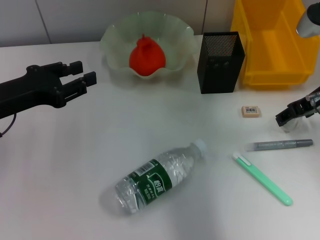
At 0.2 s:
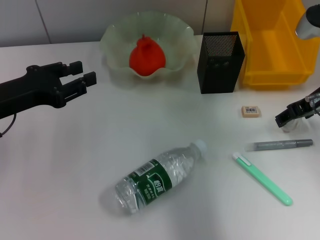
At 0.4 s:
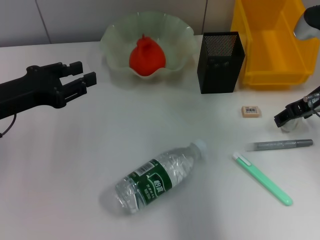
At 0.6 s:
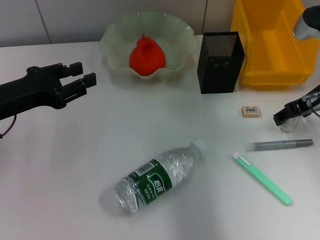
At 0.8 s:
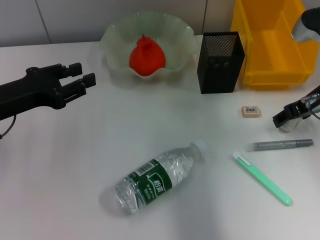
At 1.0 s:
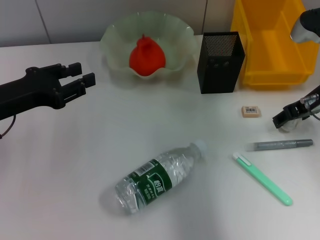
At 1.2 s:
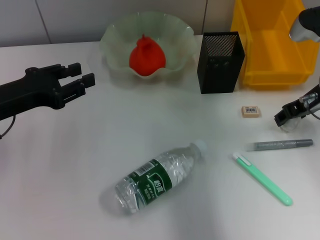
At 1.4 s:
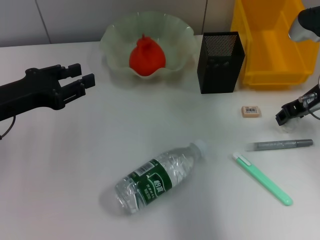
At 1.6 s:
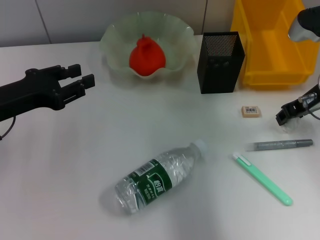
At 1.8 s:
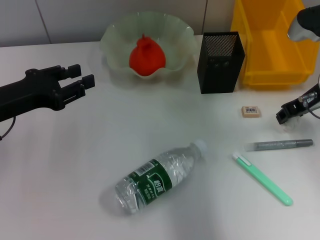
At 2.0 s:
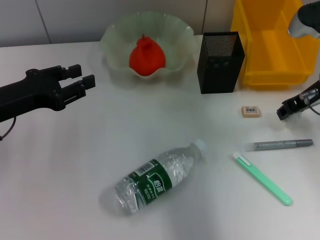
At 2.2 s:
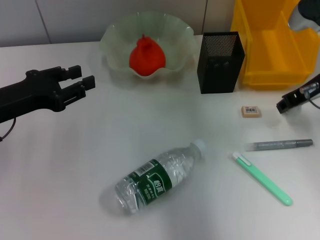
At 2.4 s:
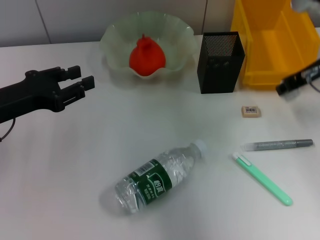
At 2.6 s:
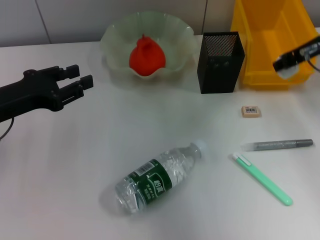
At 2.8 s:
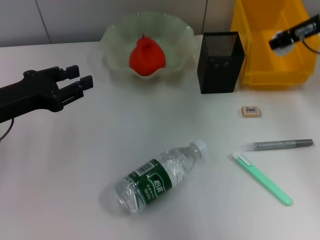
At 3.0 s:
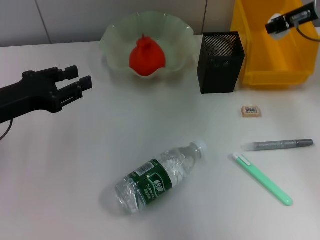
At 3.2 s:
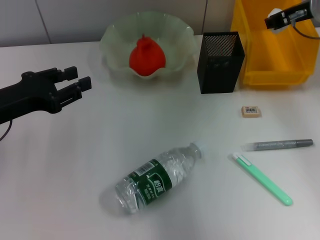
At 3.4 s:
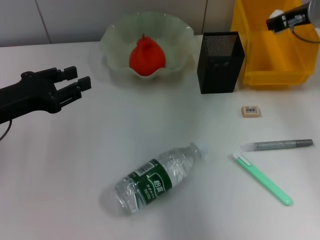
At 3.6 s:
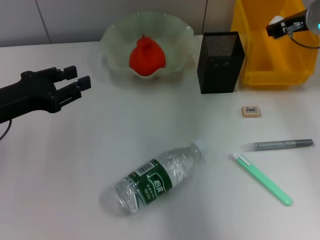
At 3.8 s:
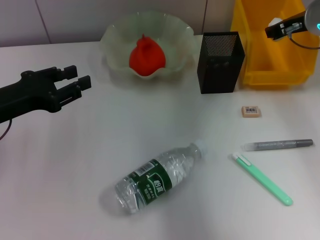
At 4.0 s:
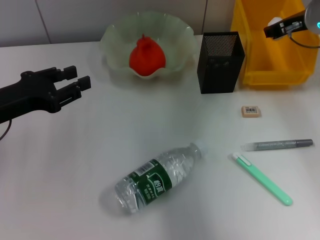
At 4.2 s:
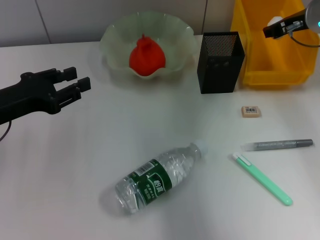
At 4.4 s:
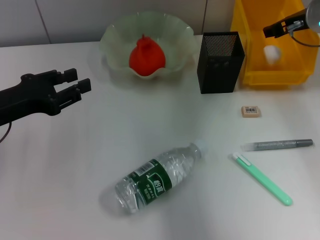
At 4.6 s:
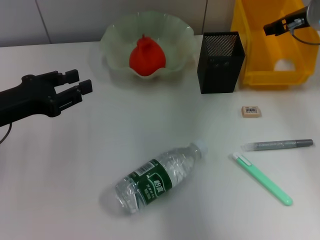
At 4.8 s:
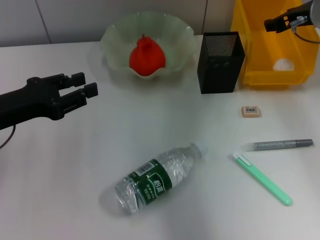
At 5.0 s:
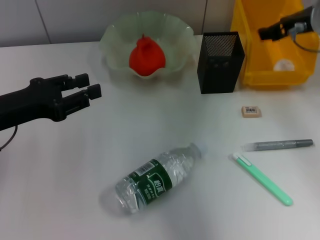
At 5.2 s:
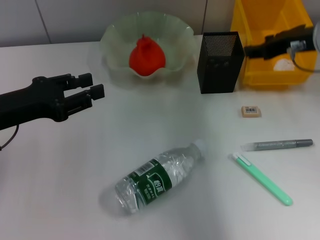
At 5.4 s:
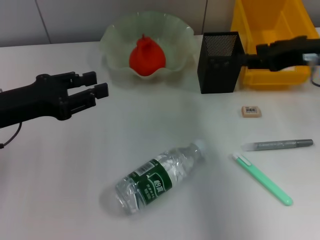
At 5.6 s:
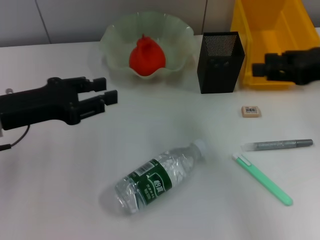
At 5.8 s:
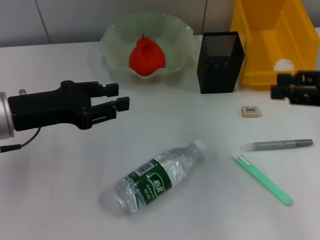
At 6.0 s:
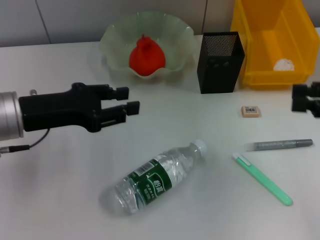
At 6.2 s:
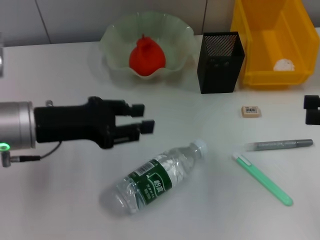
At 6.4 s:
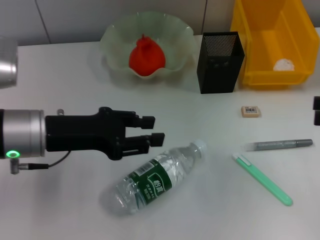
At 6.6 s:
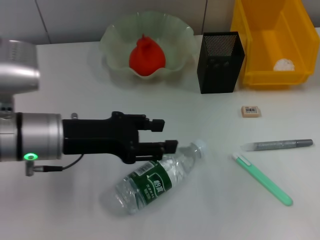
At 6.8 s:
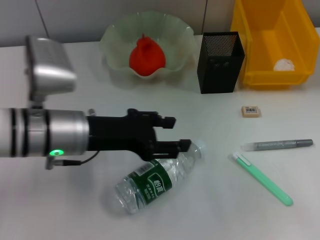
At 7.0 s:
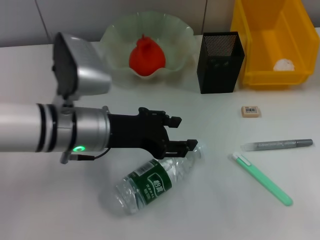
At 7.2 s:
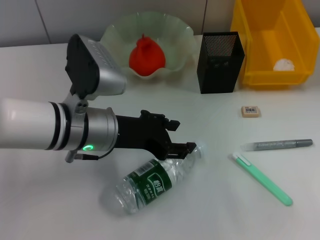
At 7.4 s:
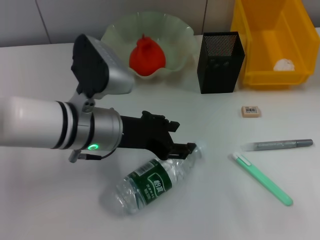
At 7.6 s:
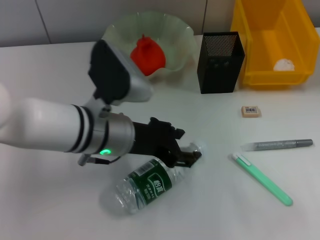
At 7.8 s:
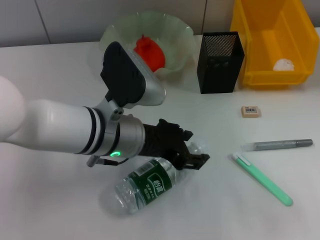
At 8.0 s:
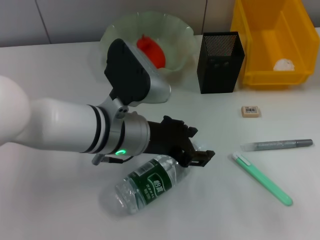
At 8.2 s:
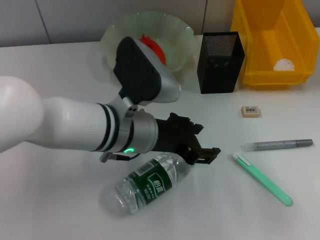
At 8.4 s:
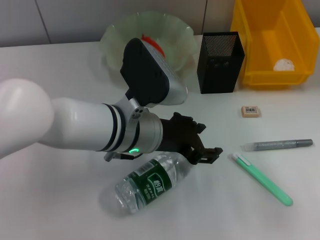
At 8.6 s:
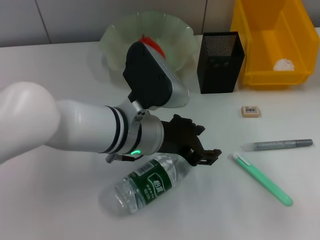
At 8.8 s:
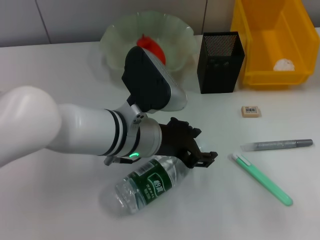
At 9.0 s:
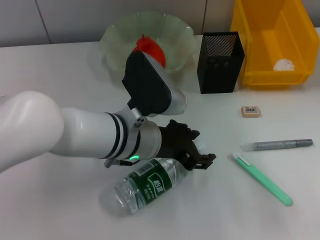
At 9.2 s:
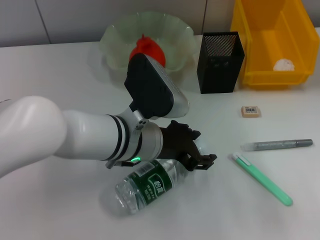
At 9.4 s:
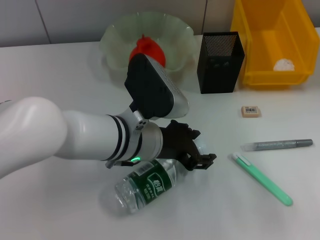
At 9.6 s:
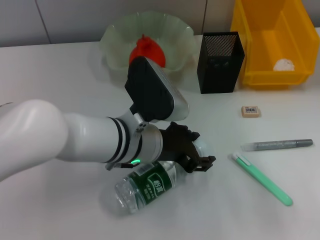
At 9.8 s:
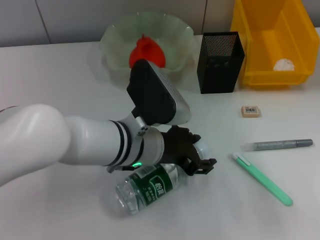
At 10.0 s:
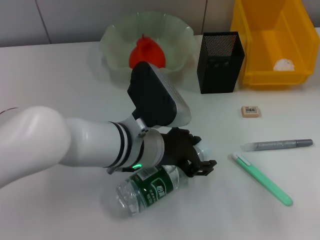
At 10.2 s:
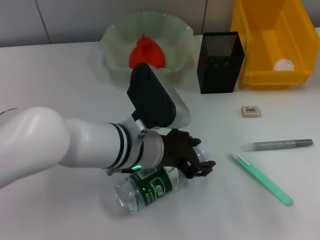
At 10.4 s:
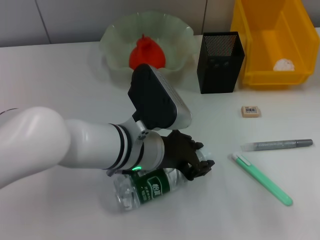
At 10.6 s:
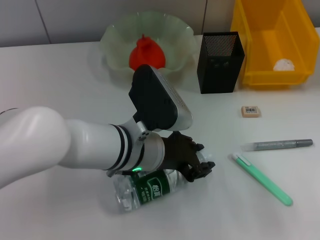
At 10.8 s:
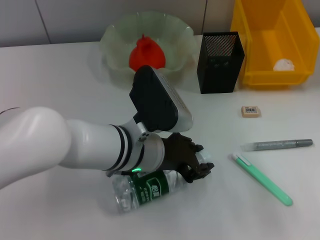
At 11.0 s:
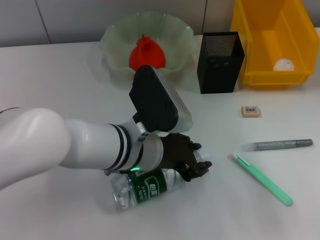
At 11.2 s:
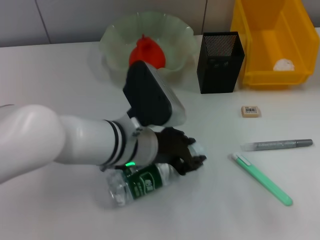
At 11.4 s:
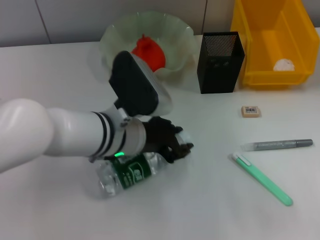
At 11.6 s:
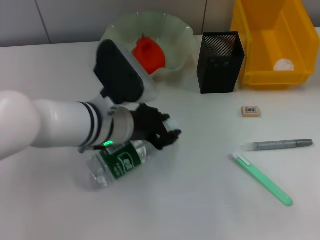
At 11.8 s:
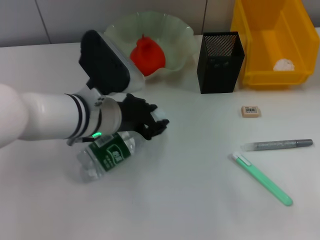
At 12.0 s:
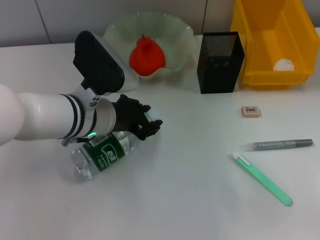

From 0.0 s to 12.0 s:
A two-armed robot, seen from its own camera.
Step, from 1.8 s to 5.2 s: Place the paper ball into the trash can with the right hand.
Step, from 5.4 s to 11.4 s: Grab the water bottle with the left hand.
From 0.0 s to 1.6 s: The right gripper closes up.
From 1.6 s to 3.0 s: The right gripper shifts roughly 10 cm upward.
From 3.0 s to 4.4 s: The right gripper shifts by approximately 5 cm.
From 4.4 s to 6.0 s: The right gripper is displaced backward and to the right by some 20 cm. Meanwhile the left gripper moves to the right, roughly 5 cm.
From 6.0 s to 7.6 s: The left gripper shifts about 15 cm to the right; the right gripper travels backward and to the right by about 10 cm.
From 7.6 s to 9.0 s: The grippers stay close to where they were, moving slightly.
From 9.0 s to 10.4 s: Both grippers stay about where they are.
From 10.4 s to 12.0 s: The left gripper heads to the left, covering approximately 5 cm.

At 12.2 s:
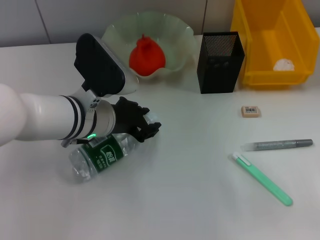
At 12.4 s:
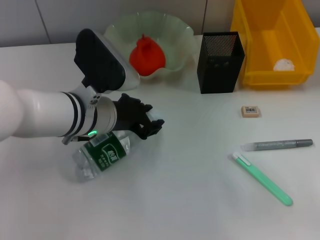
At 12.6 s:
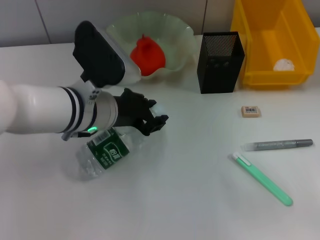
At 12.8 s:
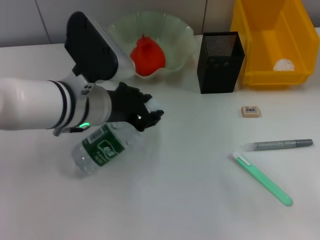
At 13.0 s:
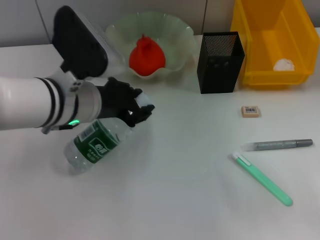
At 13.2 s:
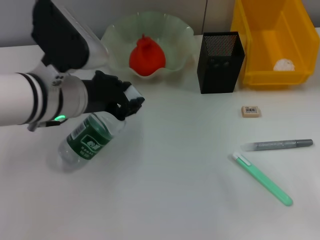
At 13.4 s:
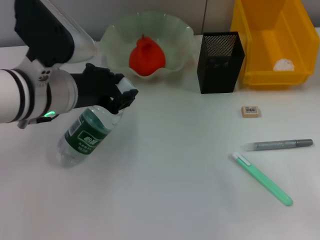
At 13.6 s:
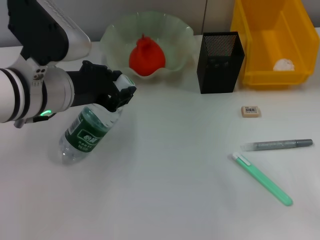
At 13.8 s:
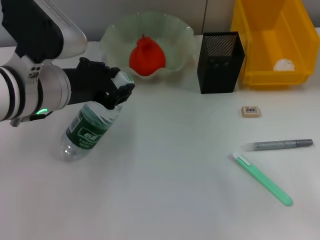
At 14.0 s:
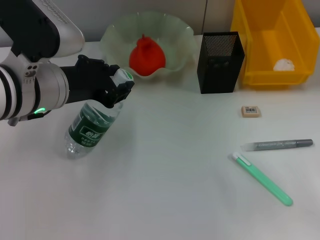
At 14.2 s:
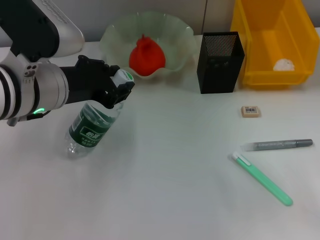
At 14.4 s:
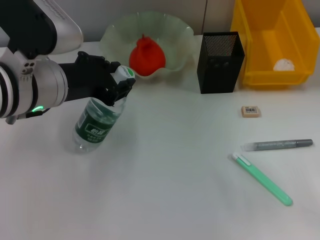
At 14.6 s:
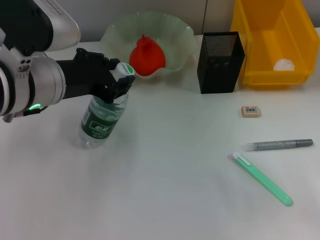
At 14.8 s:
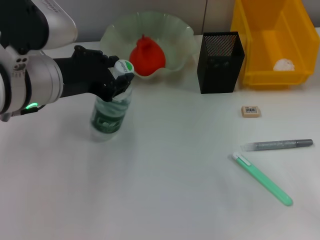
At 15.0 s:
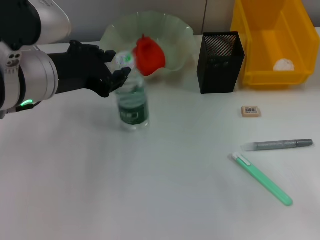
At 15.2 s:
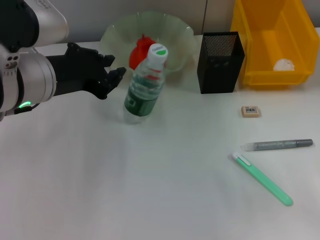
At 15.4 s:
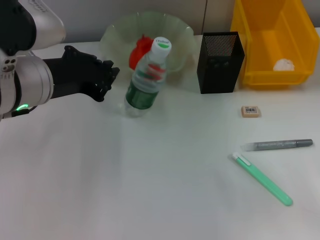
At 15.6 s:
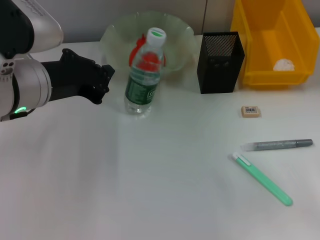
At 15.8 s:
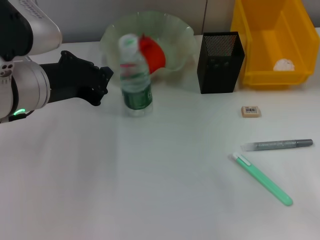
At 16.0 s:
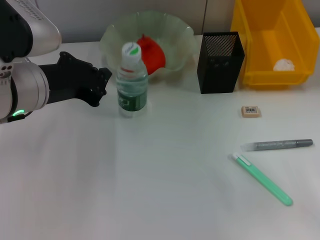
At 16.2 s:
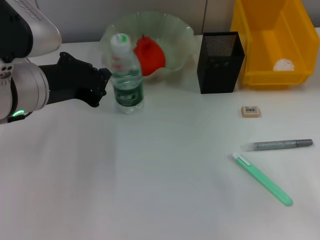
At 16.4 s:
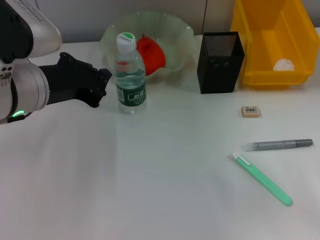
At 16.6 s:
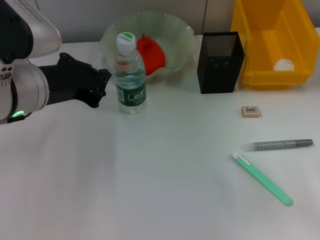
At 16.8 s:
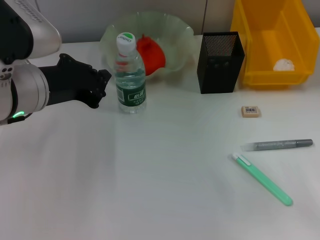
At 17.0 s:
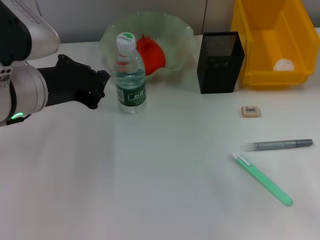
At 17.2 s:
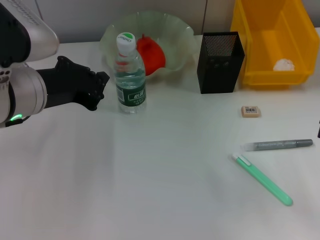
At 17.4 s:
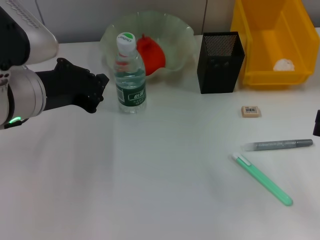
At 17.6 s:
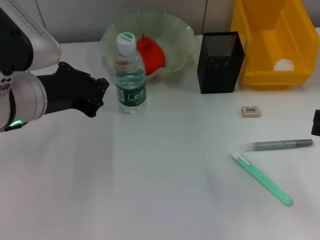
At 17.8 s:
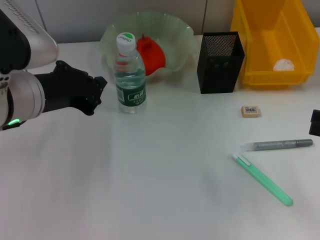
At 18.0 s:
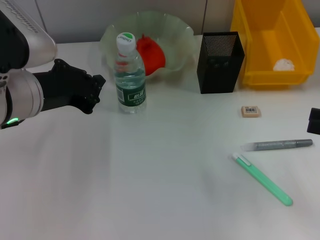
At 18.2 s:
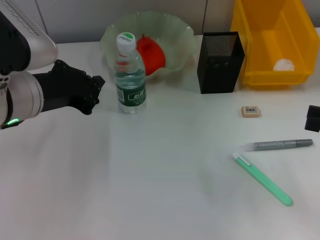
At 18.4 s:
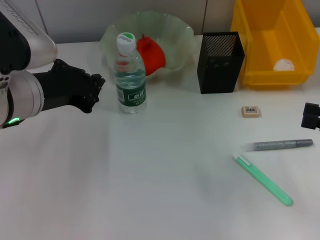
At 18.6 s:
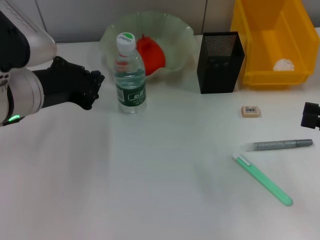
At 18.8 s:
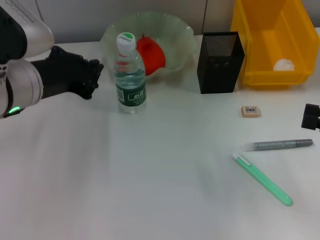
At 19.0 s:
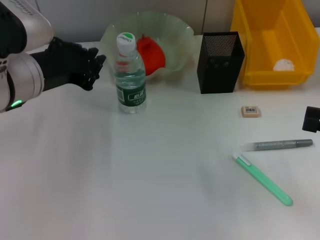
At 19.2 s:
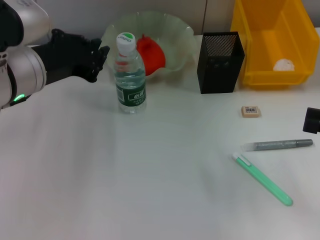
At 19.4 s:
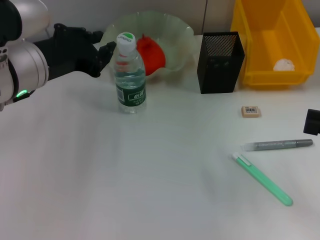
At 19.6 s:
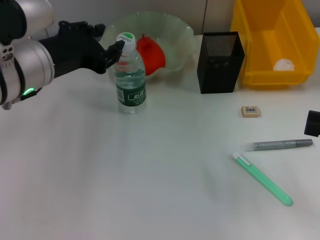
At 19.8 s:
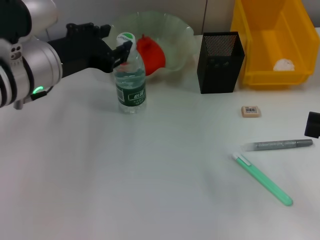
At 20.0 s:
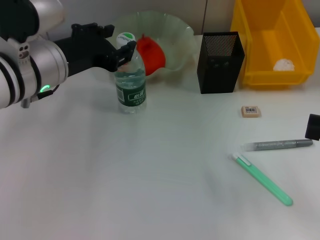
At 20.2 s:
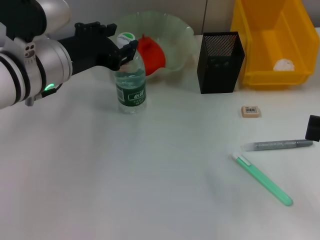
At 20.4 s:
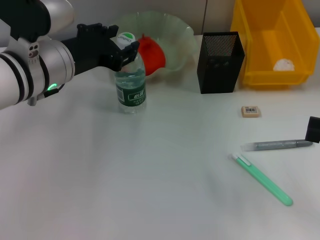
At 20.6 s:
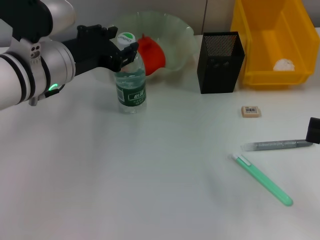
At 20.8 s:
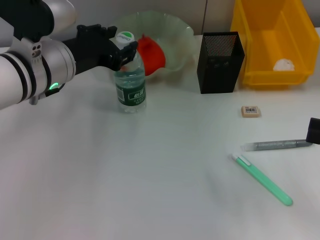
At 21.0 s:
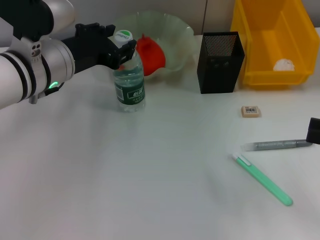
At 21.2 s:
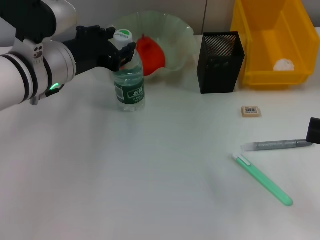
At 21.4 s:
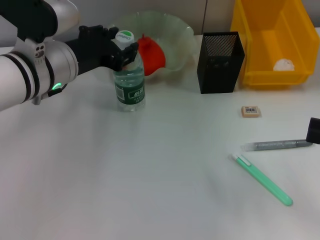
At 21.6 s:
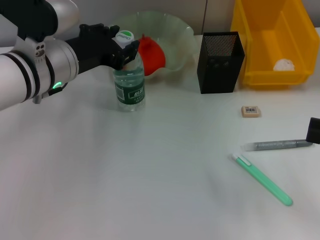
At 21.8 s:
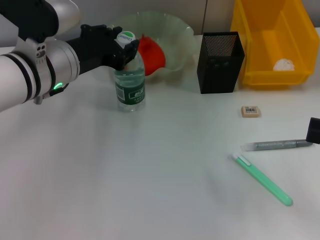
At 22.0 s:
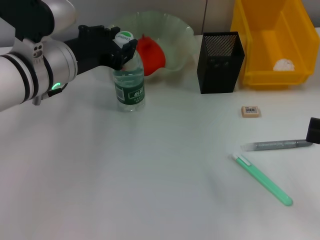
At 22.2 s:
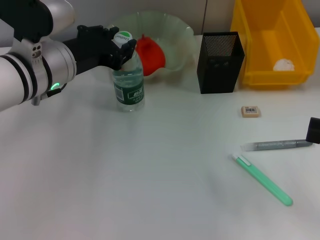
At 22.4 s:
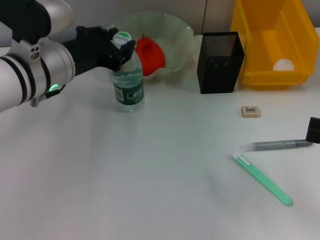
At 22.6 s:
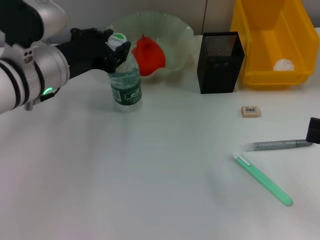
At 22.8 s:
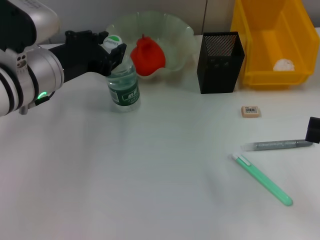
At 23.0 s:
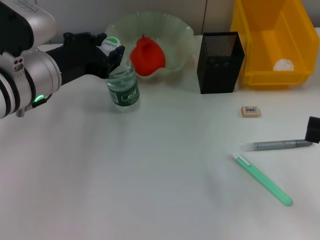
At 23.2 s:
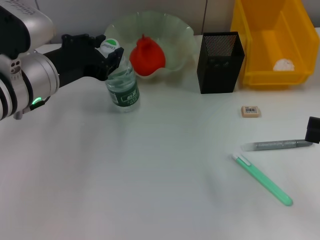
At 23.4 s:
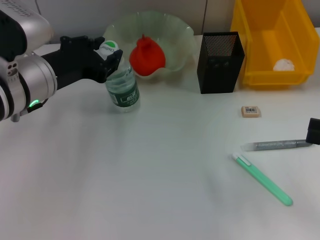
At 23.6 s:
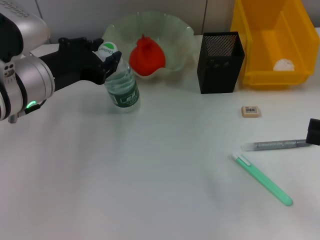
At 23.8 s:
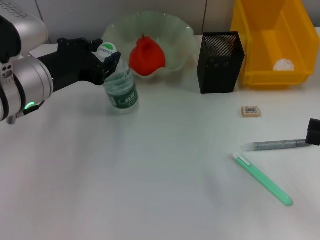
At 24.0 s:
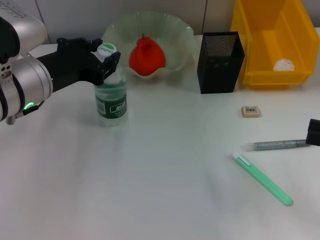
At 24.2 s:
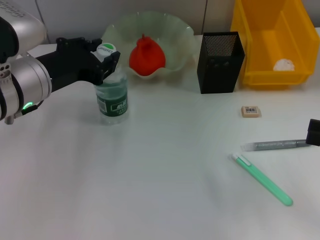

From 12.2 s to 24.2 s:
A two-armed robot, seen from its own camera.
Step, from 12.2 s to 16.4 s: Place the water bottle on the table with the left hand.
From 12.2 s to 13.8 s: The left gripper heads upward, covering approximately 5 cm.
From 13.8 s to 15.2 s: The grippers stay close to where they were, moving slightly.
From 15.2 s to 16.6 s: The left gripper closes up.
From 16.6 s to 18.2 s: The grippers make only small movements.
From 18.2 s to 19.8 s: The left gripper opens up.
From 19.8 s to 21.2 s: The grippers make only small movements.
From 21.2 s to 22.6 s: The two grippers keep their place.
From 22.6 s to 24.2 s: The grippers make only small movements.
